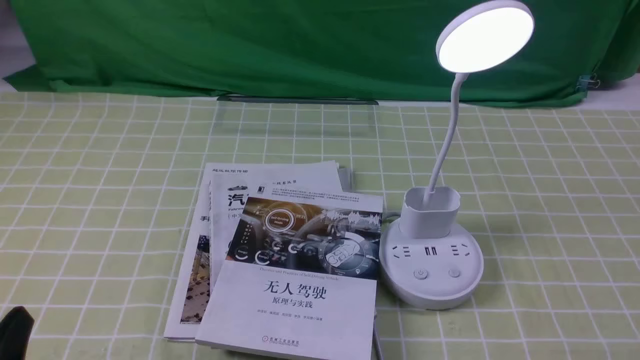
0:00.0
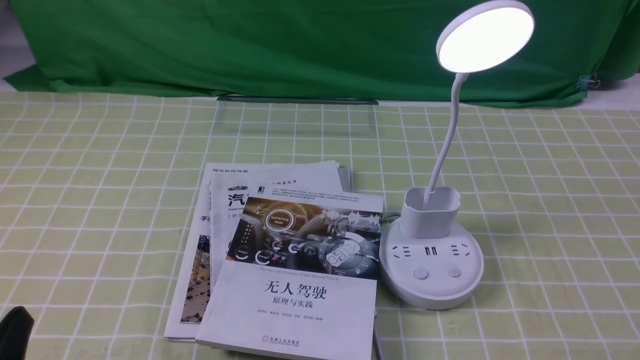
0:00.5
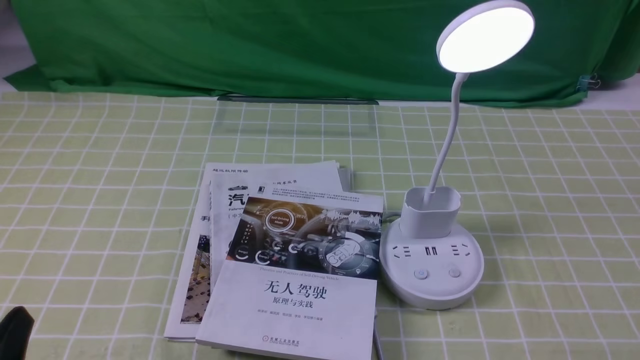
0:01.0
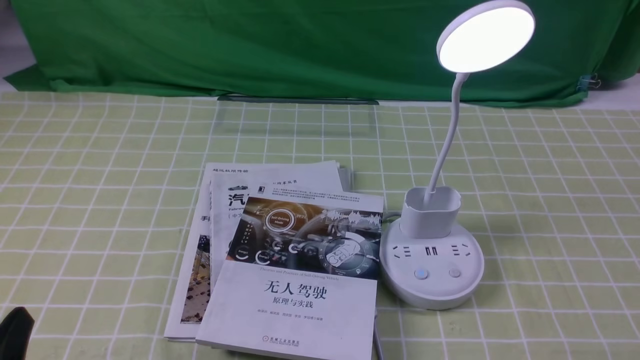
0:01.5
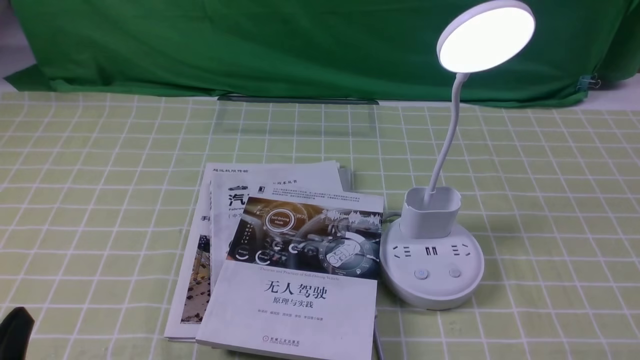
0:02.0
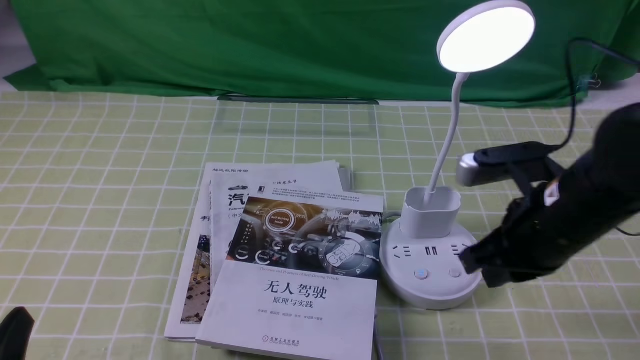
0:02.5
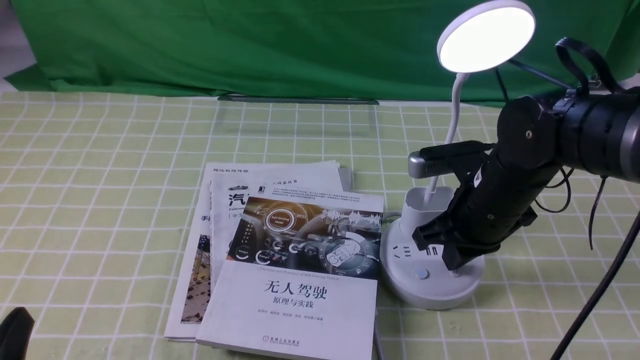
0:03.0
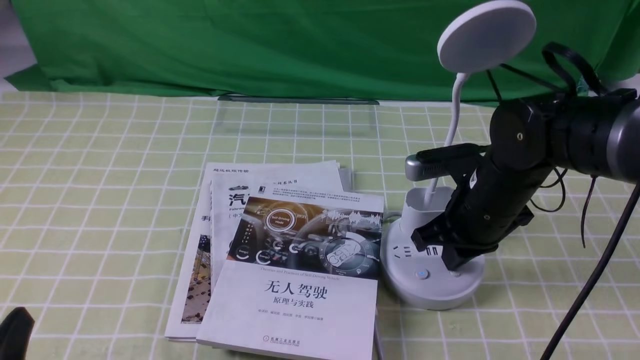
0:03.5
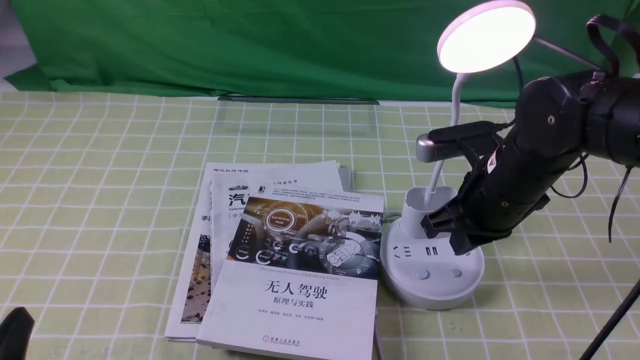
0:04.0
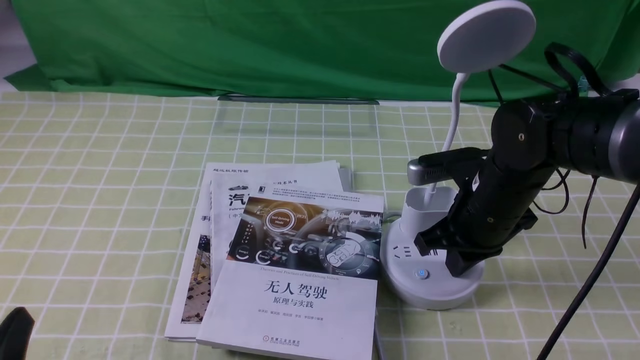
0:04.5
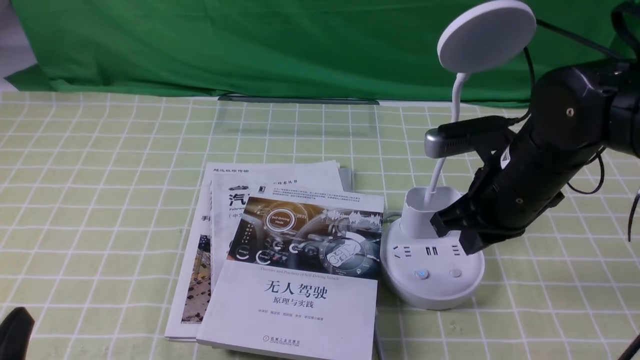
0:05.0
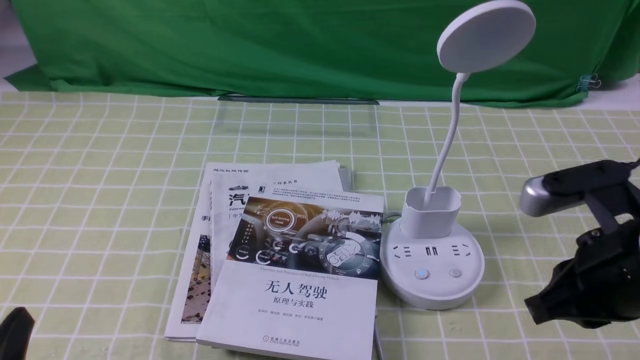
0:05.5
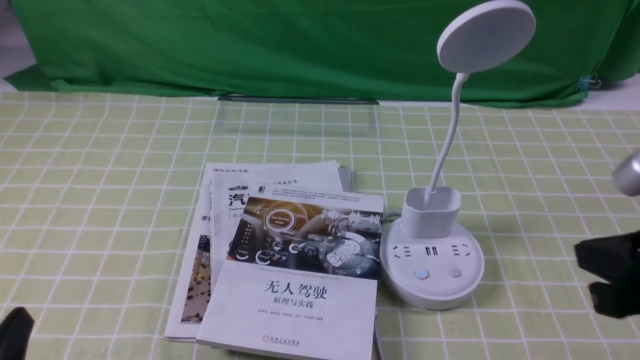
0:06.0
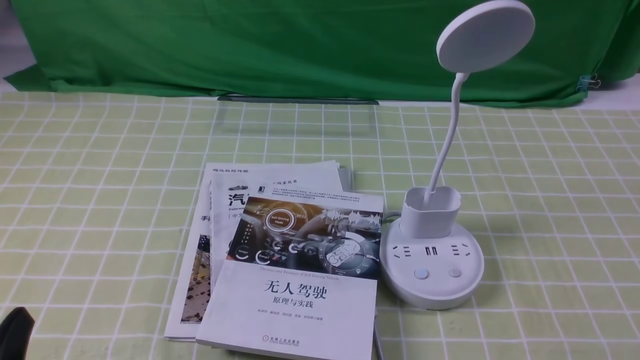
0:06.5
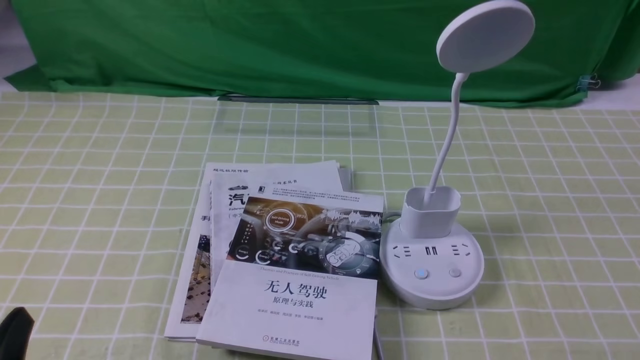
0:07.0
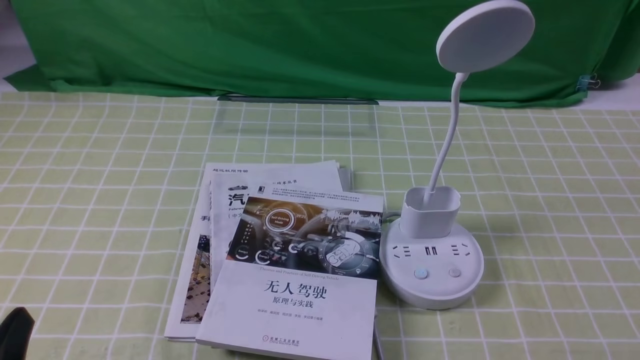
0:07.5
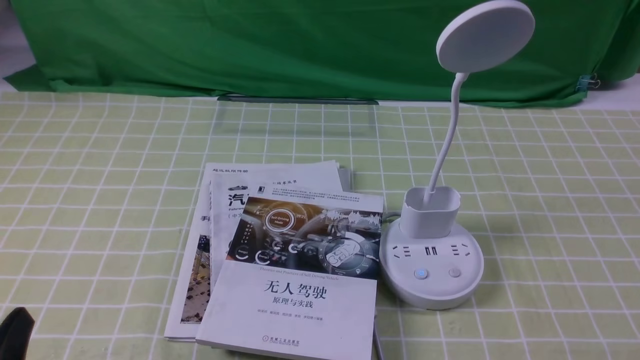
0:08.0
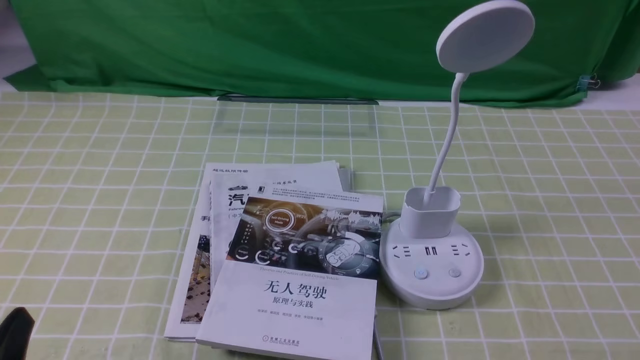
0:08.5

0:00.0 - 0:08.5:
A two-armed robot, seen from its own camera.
Task of the whole recording: turn off the desk lamp on the green coffee tablecloth by hand.
Step, 0:00.0 - 0:04.5: use the right arm to press the button switch on the lamp holder.
0:02.0 - 0:04.0: The right gripper moves forward, to the left and downward, some 25 cm.
0:04.0 - 0:06.5: The right gripper is displaced backward and to the right by approximately 30 cm.

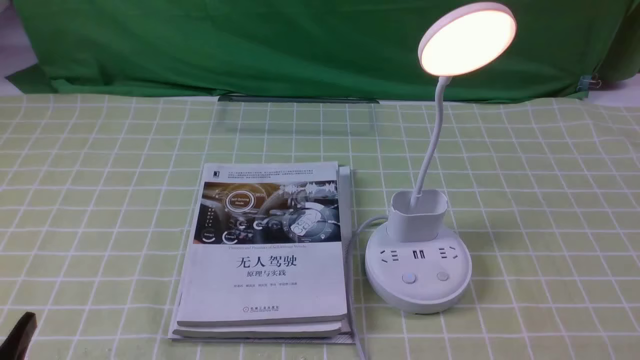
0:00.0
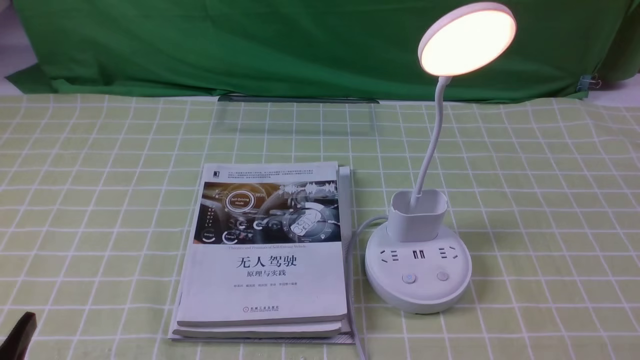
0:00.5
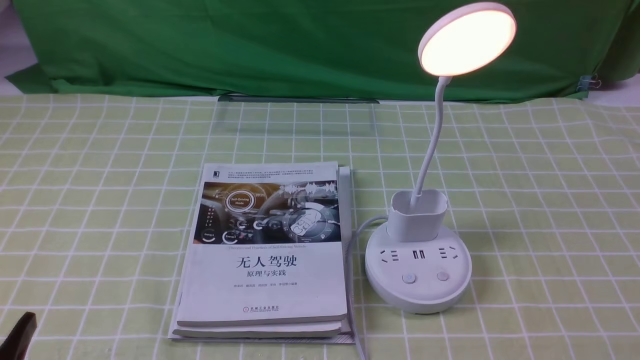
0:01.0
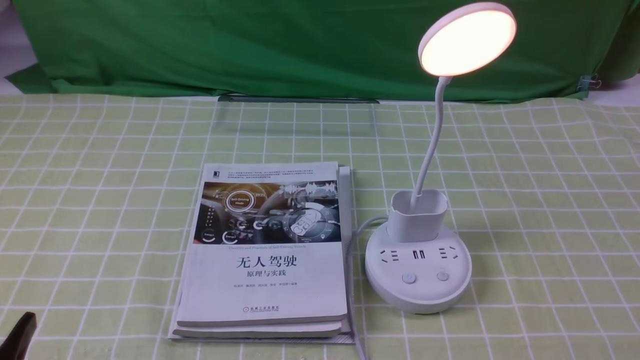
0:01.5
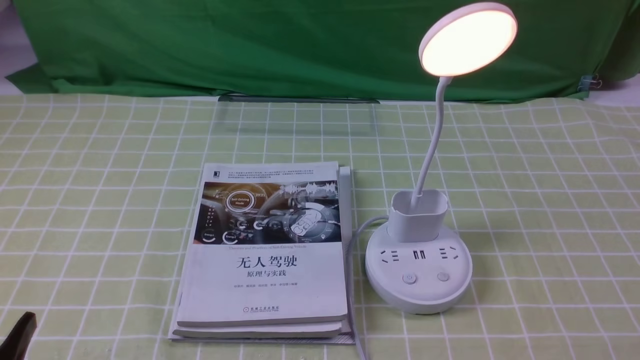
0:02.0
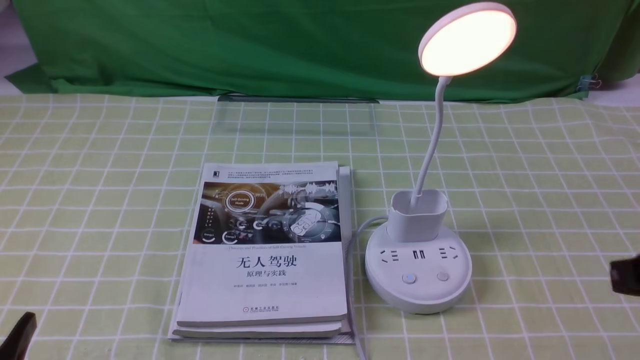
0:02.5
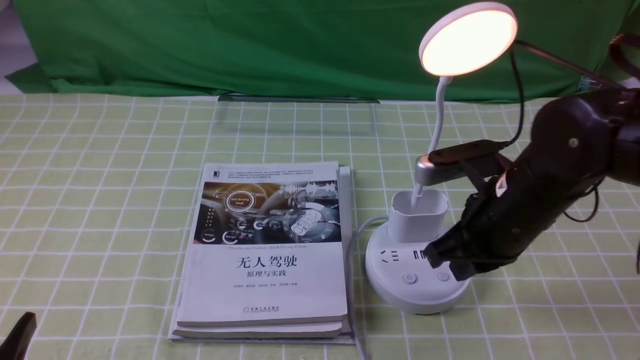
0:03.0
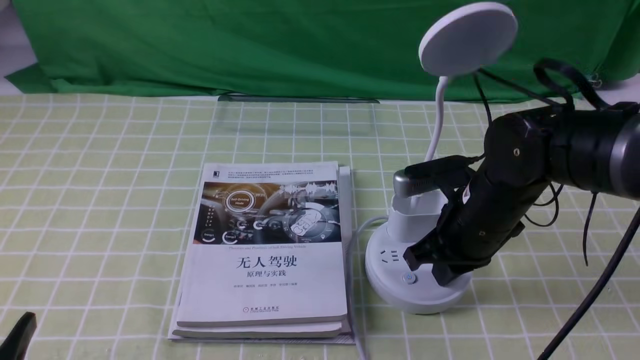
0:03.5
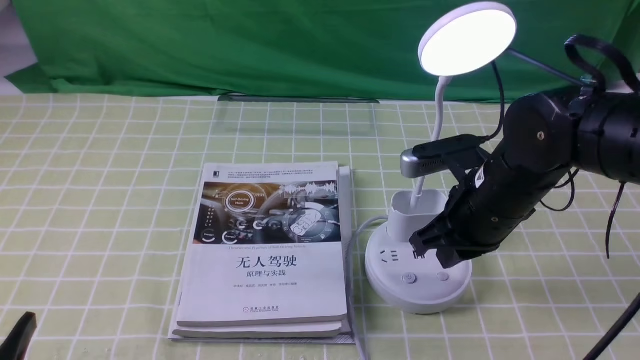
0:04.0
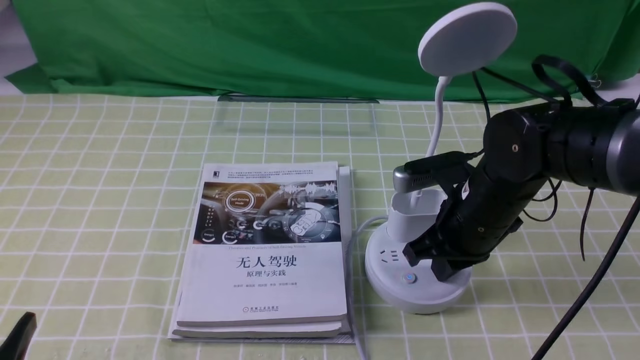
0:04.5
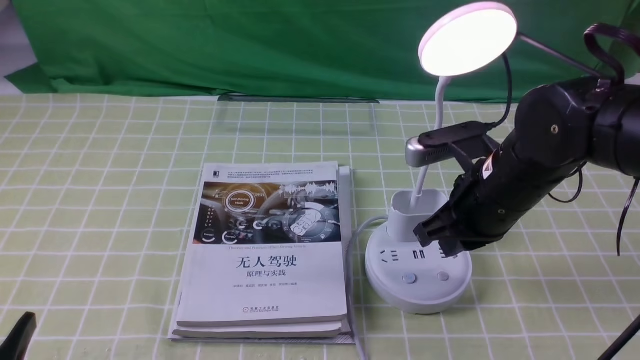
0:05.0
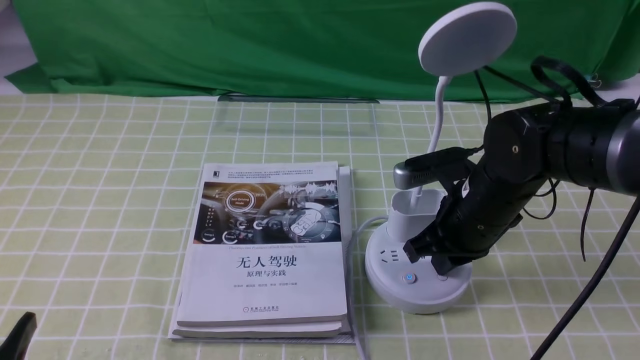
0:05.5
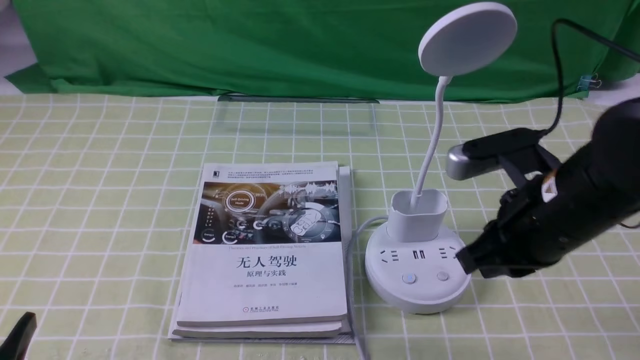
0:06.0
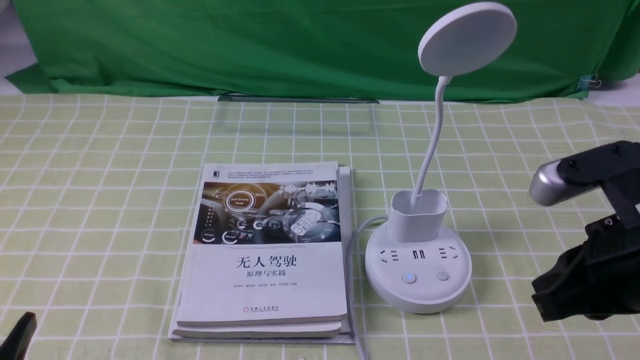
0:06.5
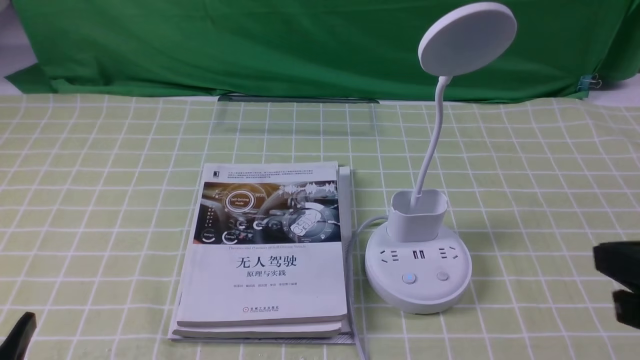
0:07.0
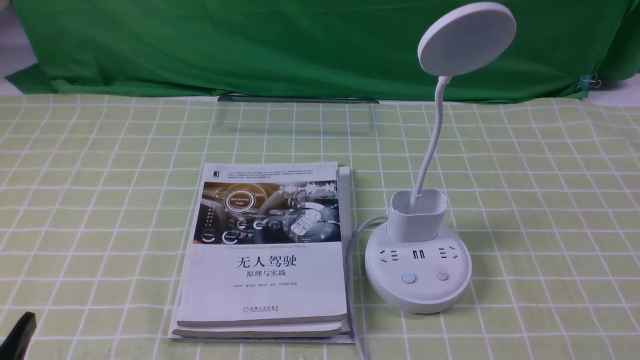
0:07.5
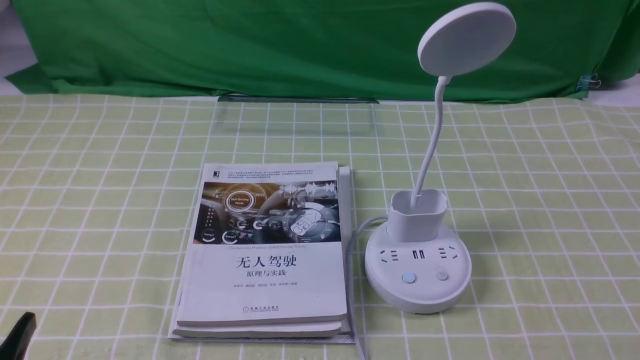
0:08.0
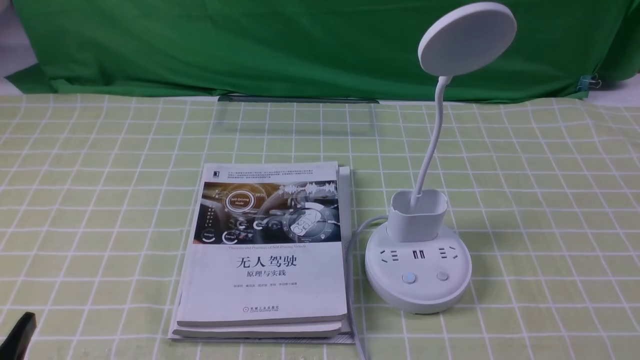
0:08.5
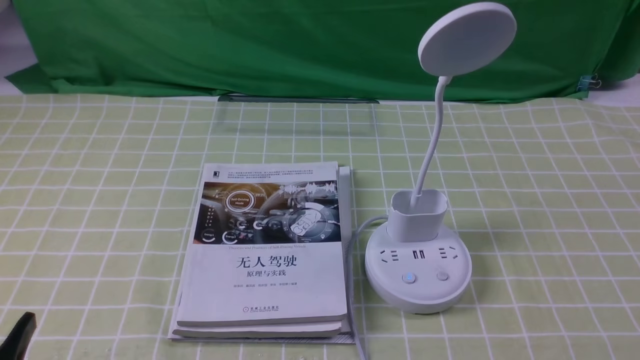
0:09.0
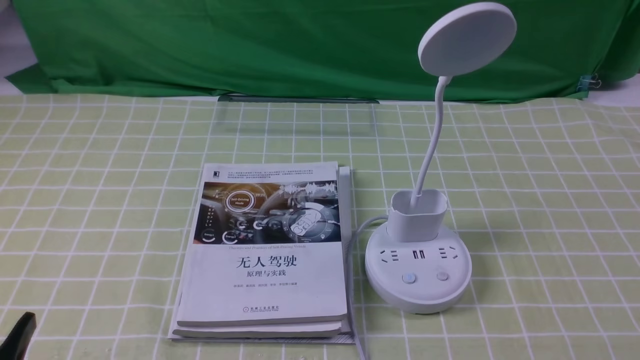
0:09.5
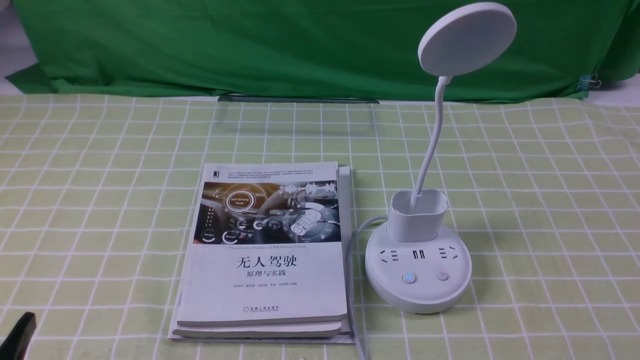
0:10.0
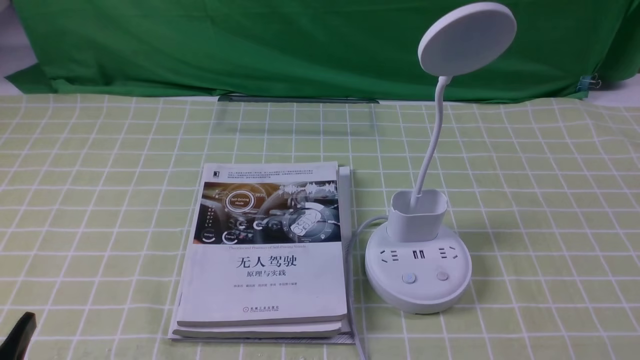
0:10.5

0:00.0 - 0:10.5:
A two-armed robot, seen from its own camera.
Task of the whole recording: turn off the desk lamp on the green coffee tablecloth by hand.
Step, 0:00.0 - 0:05.5: use the right arm to press the button switch on the lamp holder.
0:02.0 - 0:04.0: The right gripper is displaced forward and to the left by about 30 cm, and closes.
0:04.0 - 0:06.5: The right gripper moves backward, upward and to the right, some 15 cm.
0:06.5 - 0:08.5: The right gripper goes roughly 20 cm backward, downward and to the right.
